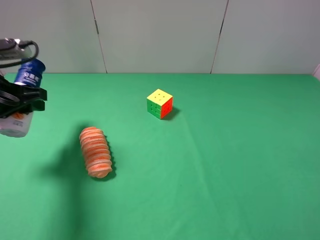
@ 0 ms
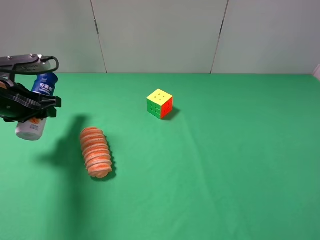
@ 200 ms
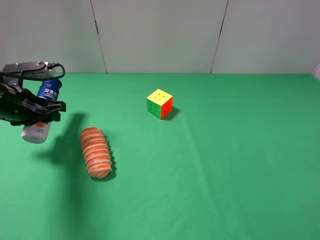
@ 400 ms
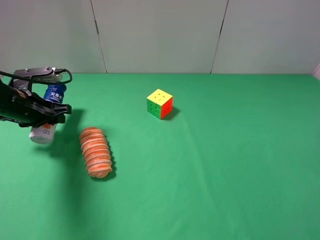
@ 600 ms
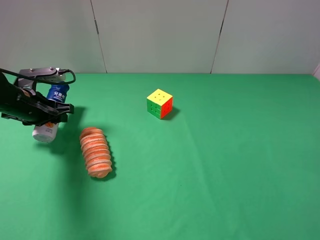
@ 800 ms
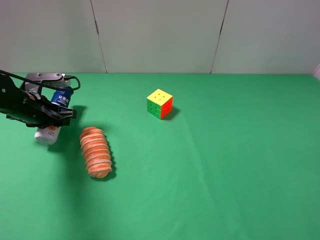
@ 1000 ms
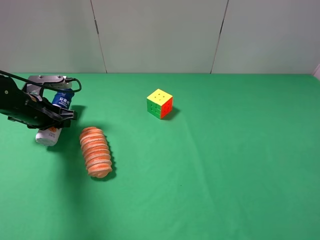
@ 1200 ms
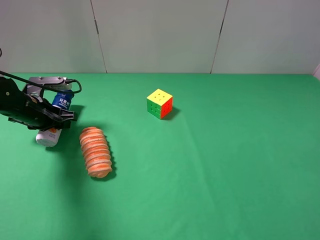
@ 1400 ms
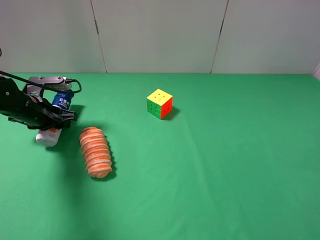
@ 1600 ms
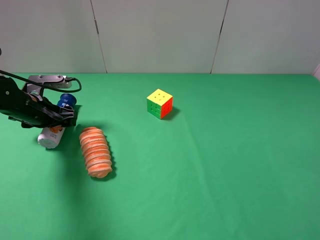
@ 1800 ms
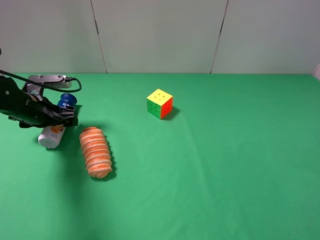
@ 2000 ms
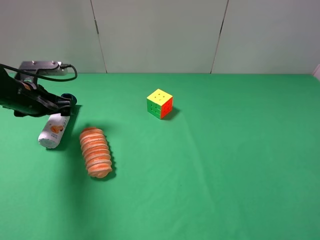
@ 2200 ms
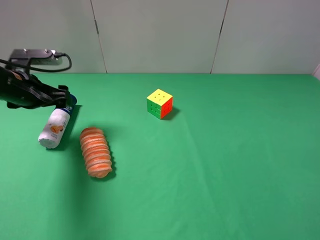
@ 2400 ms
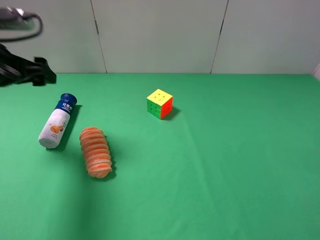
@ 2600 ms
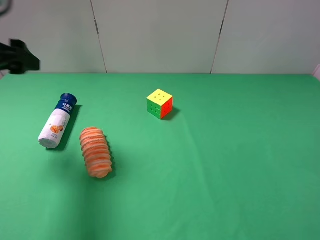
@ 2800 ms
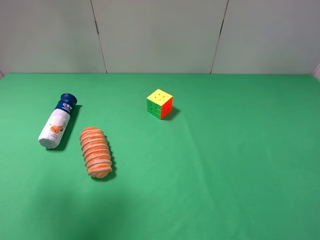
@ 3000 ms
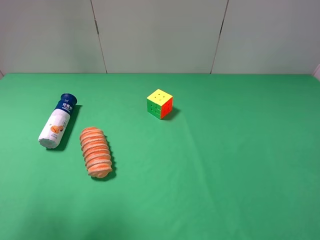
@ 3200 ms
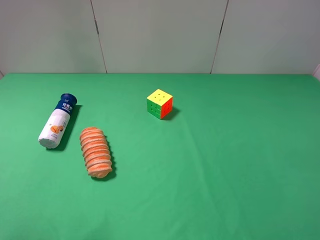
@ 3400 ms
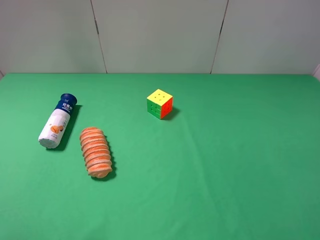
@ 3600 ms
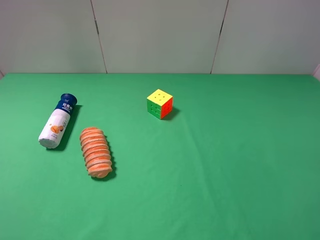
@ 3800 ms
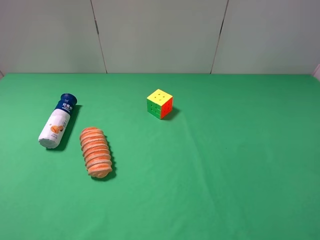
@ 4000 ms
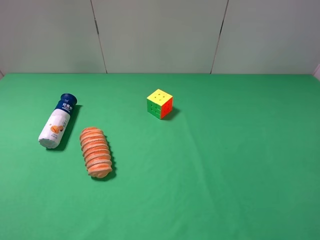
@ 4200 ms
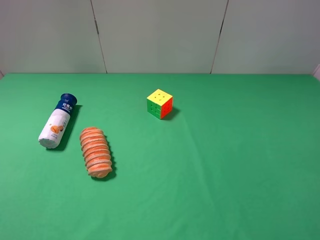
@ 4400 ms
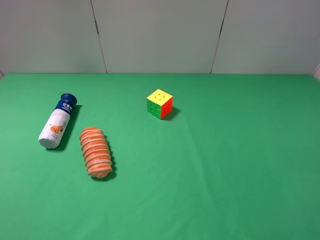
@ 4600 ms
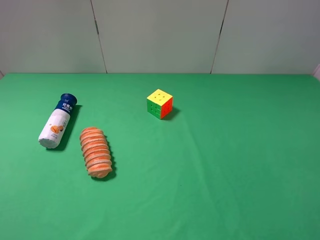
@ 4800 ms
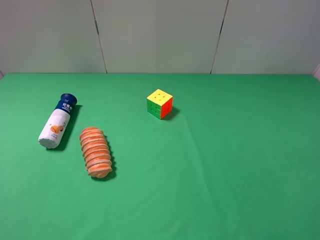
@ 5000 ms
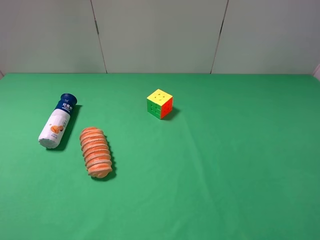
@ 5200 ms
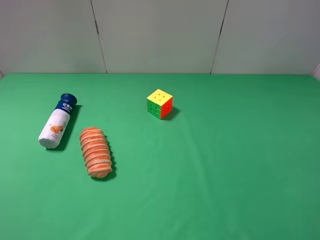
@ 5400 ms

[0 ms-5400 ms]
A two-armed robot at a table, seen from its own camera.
Task of the whole recording: use the right gripper to pick up the item and transfer it from the right gripper to the left gripper.
Step, 0 ms to 2000 ms: The left gripper places yogurt on the left side of the table.
0 ms to 1400 ms: The left gripper shifts about 10 cm downward and forward.
1400 ms to 2800 ms: The left gripper moves upward and backward, about 20 cm, and opens up.
2800 ms to 4000 ms: The left gripper travels backward by about 25 cm.
